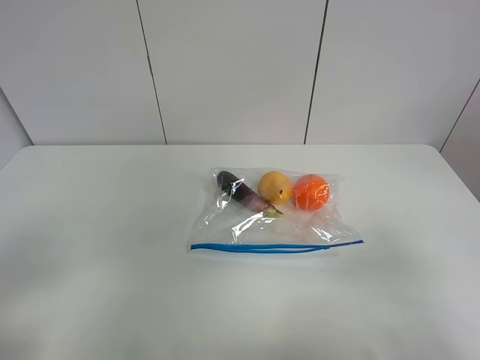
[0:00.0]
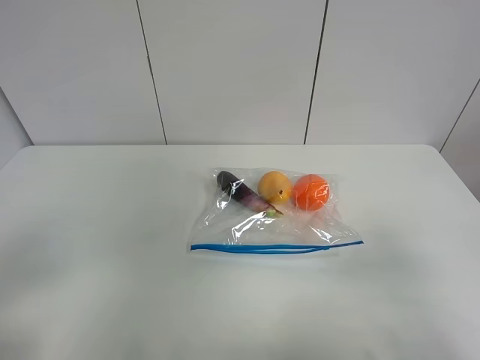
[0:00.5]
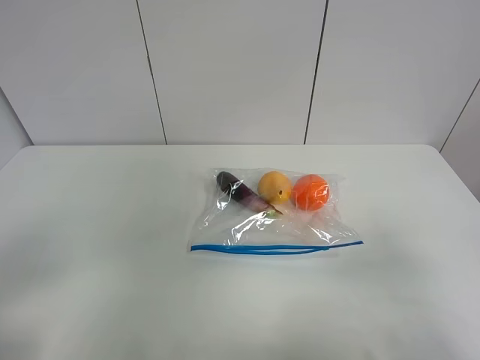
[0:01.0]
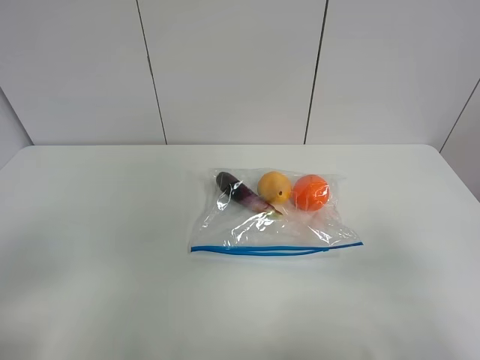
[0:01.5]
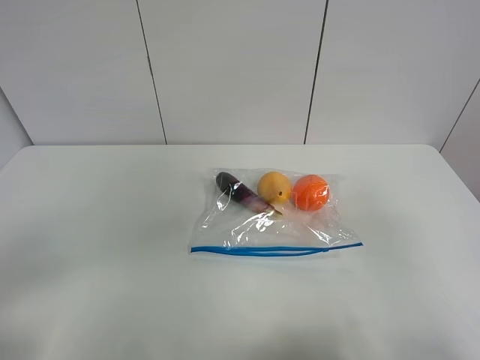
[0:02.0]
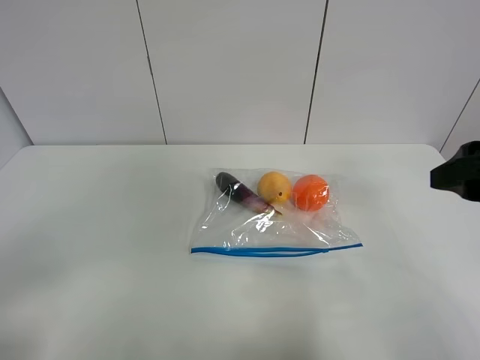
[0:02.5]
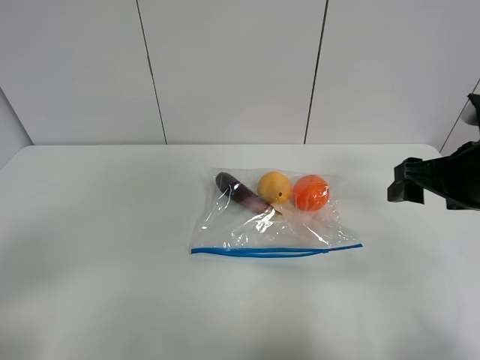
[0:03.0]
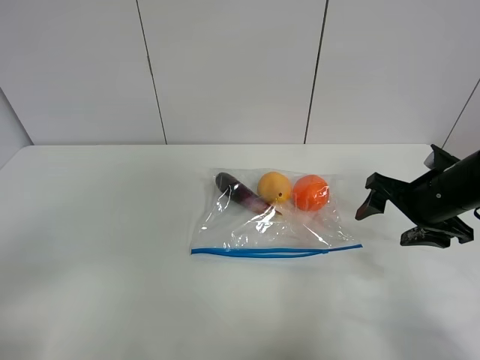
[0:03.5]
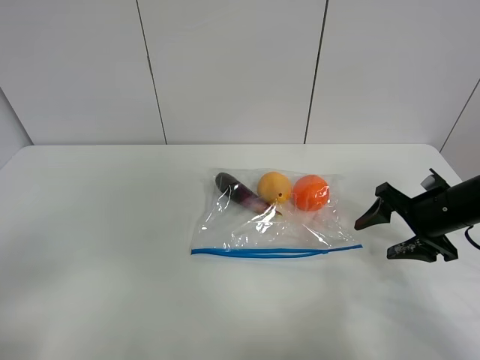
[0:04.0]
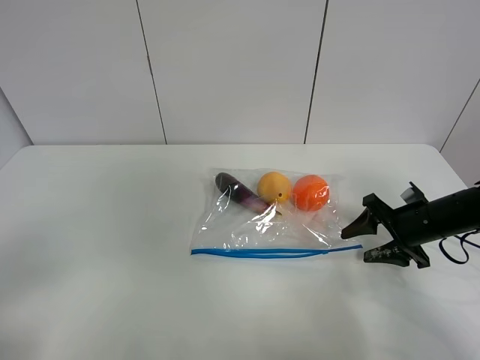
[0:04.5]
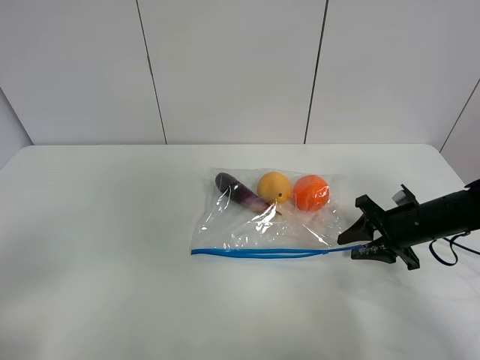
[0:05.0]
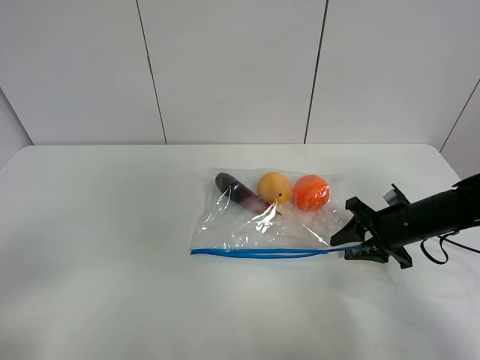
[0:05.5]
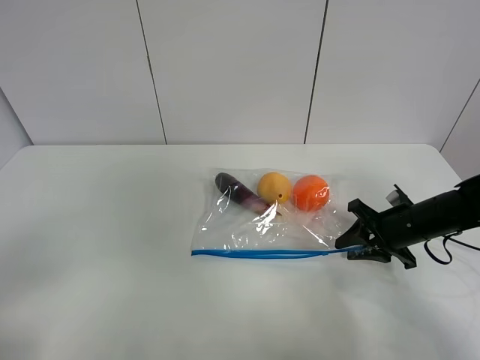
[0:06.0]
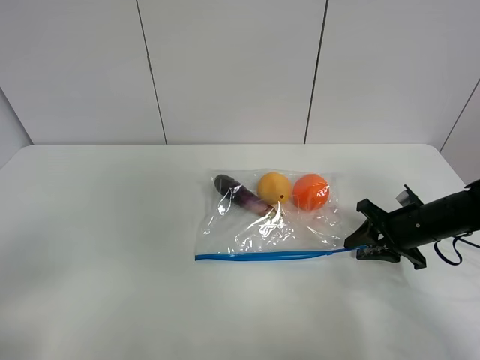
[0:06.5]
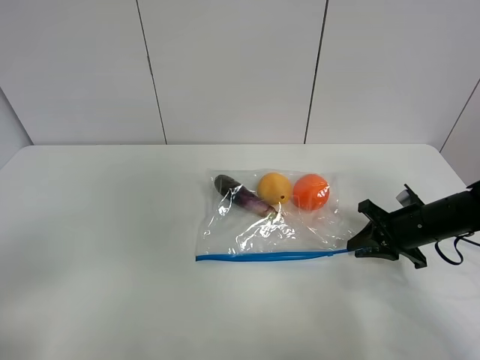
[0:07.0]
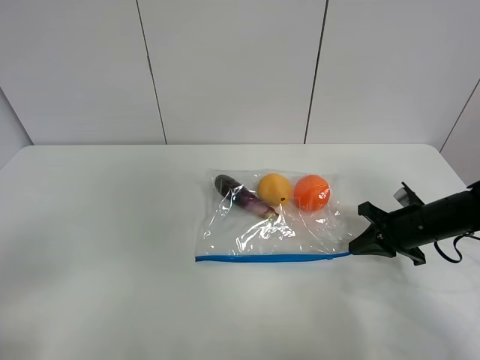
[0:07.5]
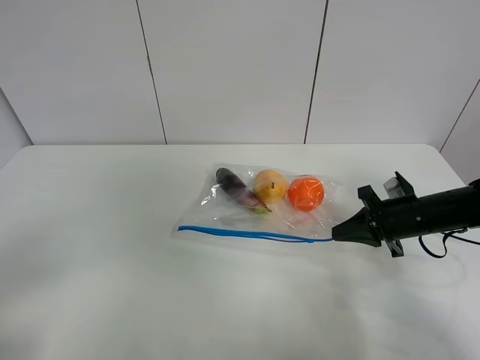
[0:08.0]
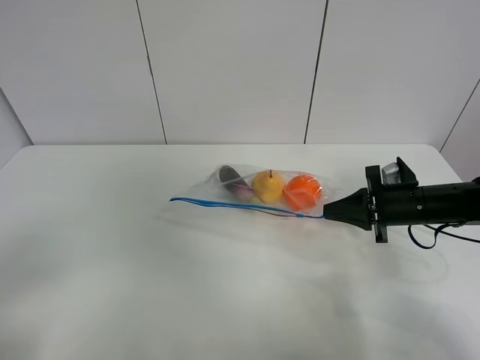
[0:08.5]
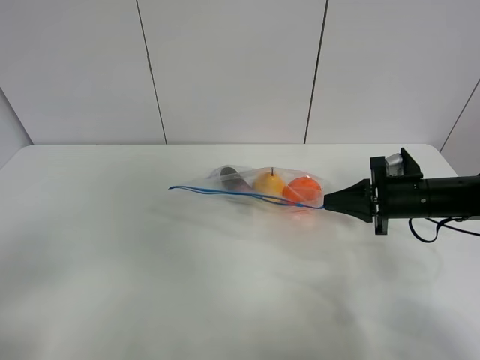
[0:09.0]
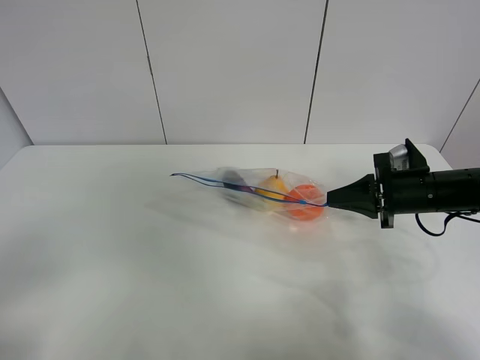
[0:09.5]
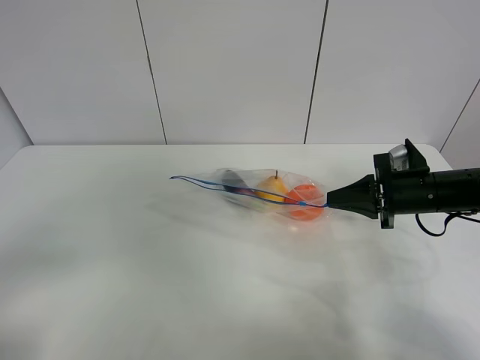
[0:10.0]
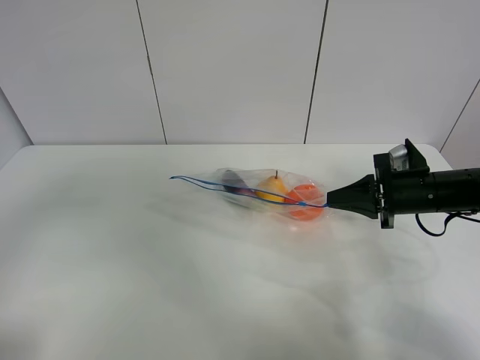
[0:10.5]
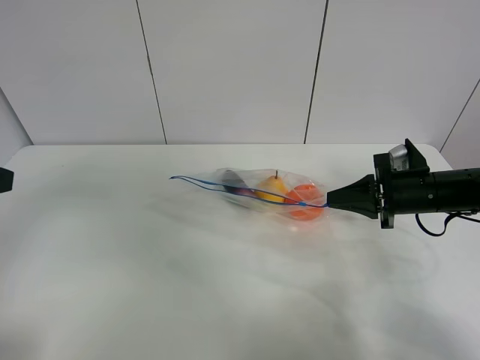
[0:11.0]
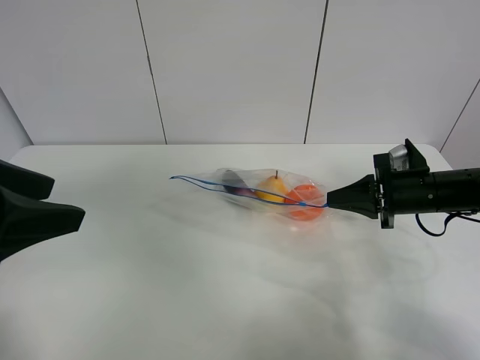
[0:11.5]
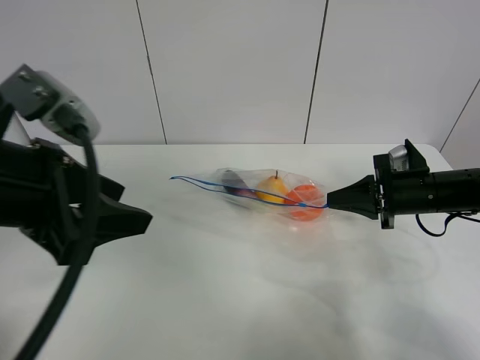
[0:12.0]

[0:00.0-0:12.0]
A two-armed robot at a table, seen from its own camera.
Step, 0.0 to 7.0 s: Grasp the fruit bag with right gripper.
Step, 7.5 to 9.5 s: Lift the fruit bag with your right gripper.
0.0 to 2.0 s: The right gripper heads forward and upward, covering roughly 10 cm.
2.0 to 4.0 s: The right gripper is displaced forward and downward by some 30 cm.
4.0 to 6.0 s: The right gripper ends up some 5 cm from where it was, and closes.
6.0 to 8.0 s: The right gripper closes its fingers.
8.0 to 10.0 s: The grippers move only a little.
10.0 to 12.0 s: The left gripper shifts about 20 cm forward and to the right.

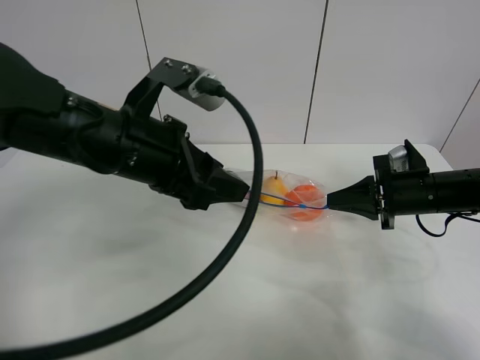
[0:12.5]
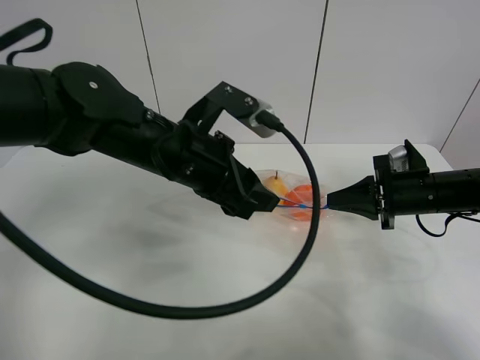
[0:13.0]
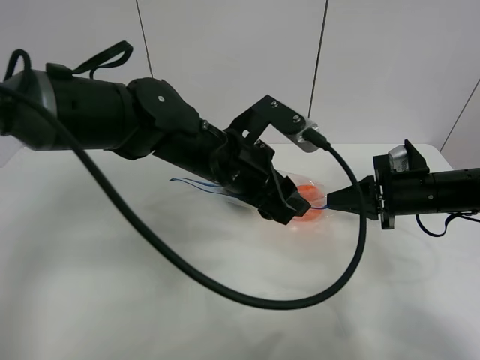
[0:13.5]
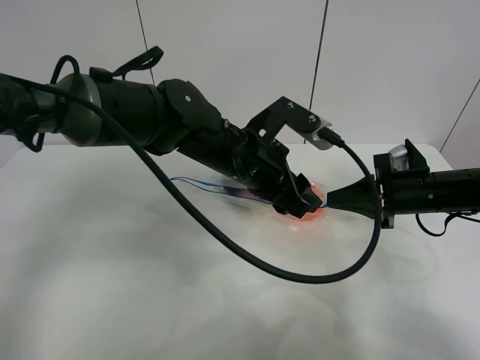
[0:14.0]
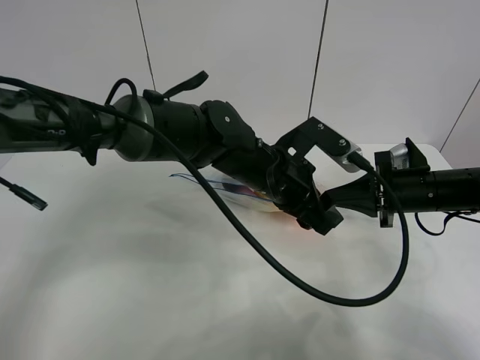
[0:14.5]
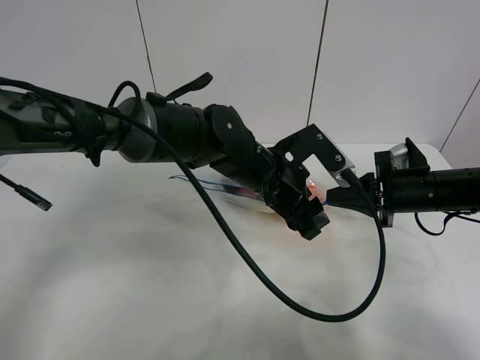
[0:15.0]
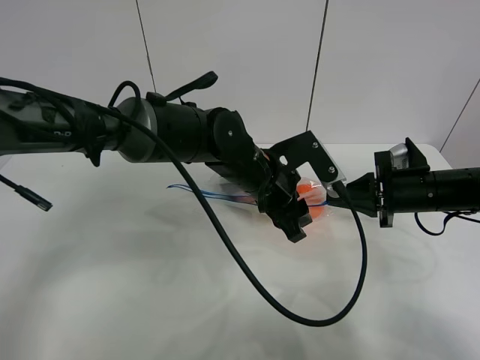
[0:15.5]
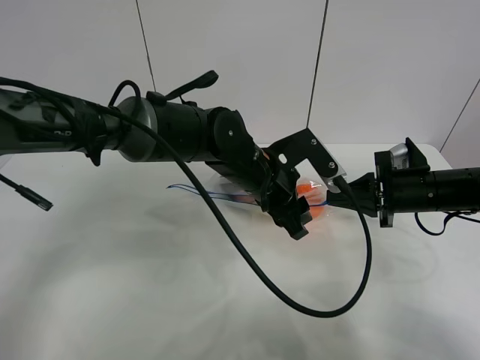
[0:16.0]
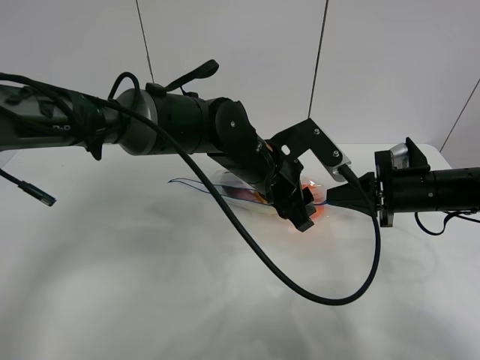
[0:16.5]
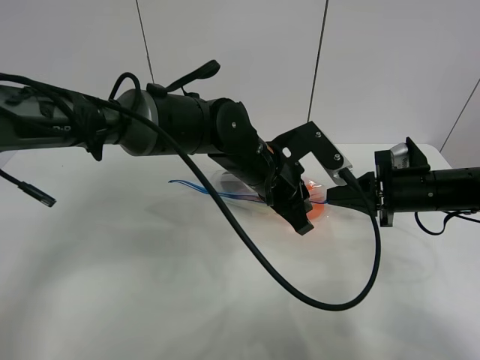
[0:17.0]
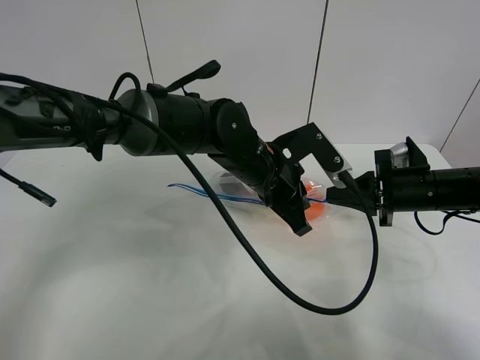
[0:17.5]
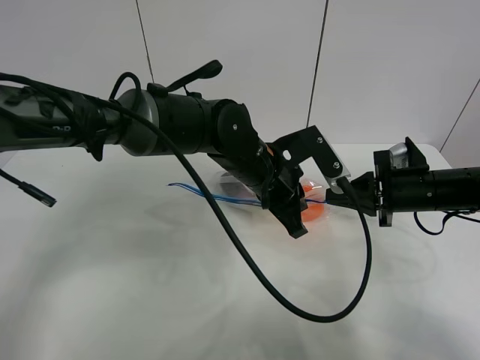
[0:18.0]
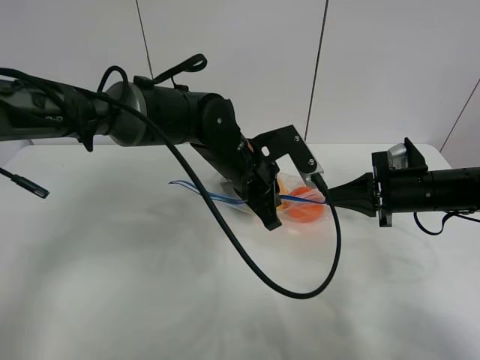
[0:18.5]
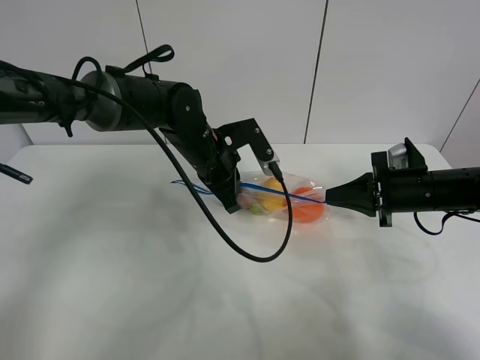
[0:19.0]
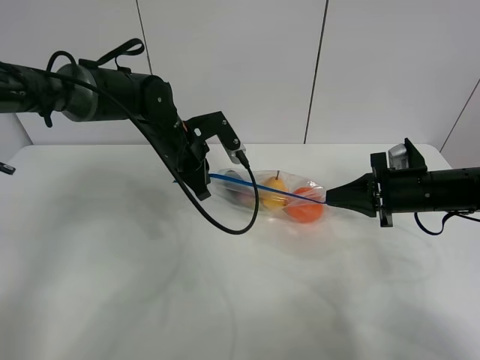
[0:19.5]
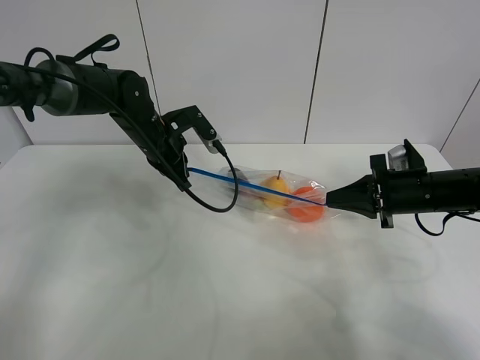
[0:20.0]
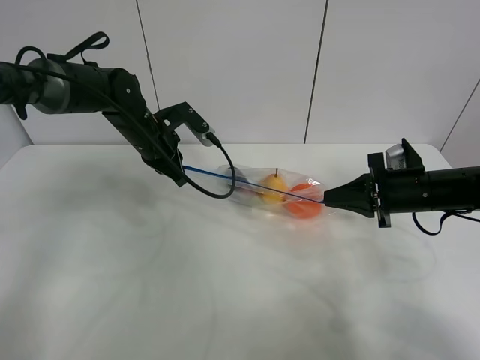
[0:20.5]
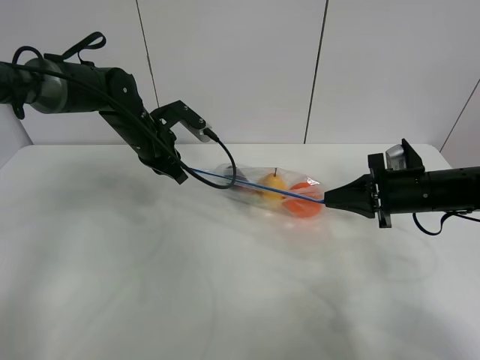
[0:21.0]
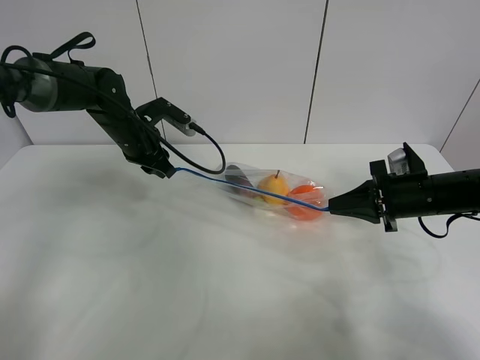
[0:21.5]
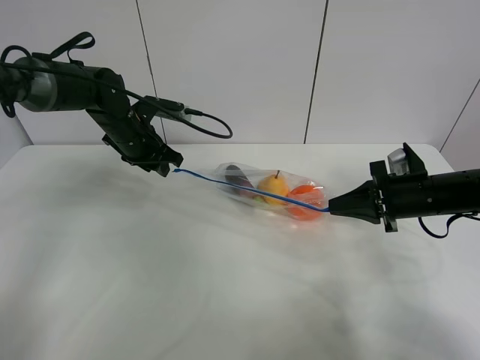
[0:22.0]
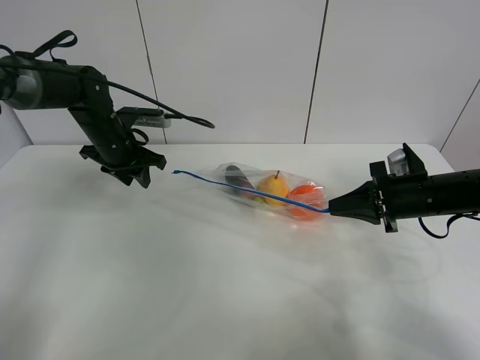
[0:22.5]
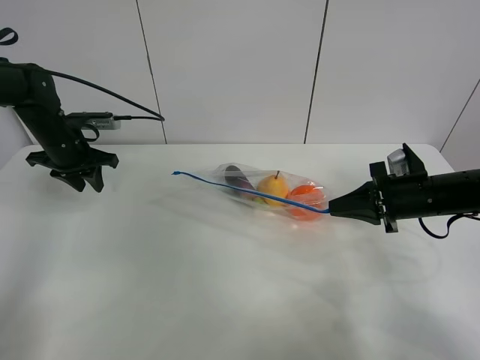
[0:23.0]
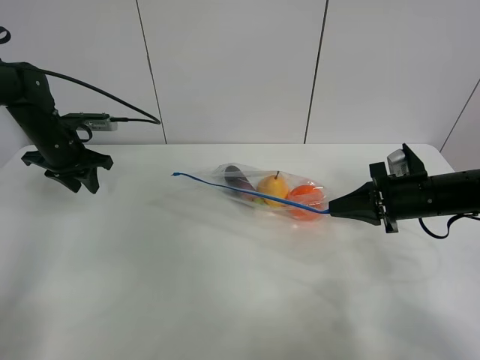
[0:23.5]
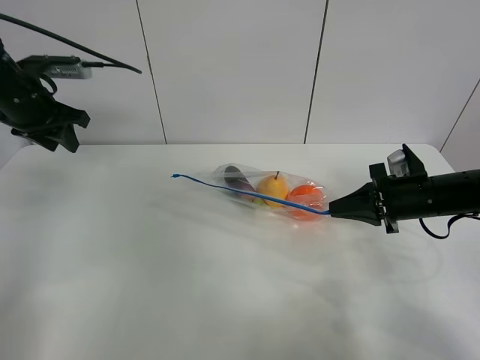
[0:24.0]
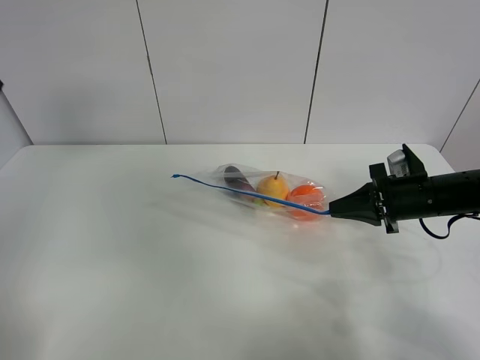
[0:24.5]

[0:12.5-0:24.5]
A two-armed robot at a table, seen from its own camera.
Step, 12.5 to 21.5 s: Pull the fruit bag with left gripper.
12.5 to 14.5 s: The left gripper is displaced to the right, downward and forward by roughly 20 cm.
14.5 to 16.5 s: There are only small adjustments of the grippers.
16.5 to 18.5 s: The left gripper closes its fingers.
18.5 to 20.5 s: The left gripper heads to the left and forward, covering some 20 cm.
20.5 to 22.5 s: The left gripper moves to the left, approximately 5 cm, and opens.
22.5 to 24.5 s: The left gripper heads upward and backward, covering approximately 30 cm.

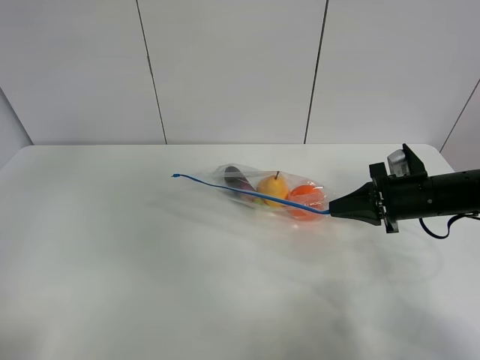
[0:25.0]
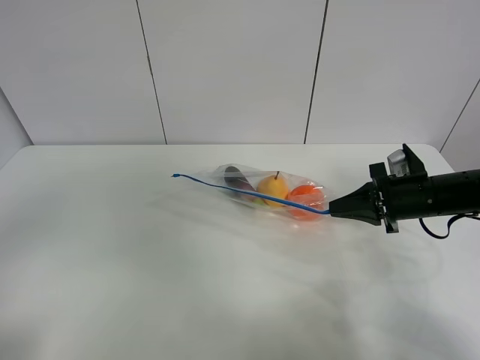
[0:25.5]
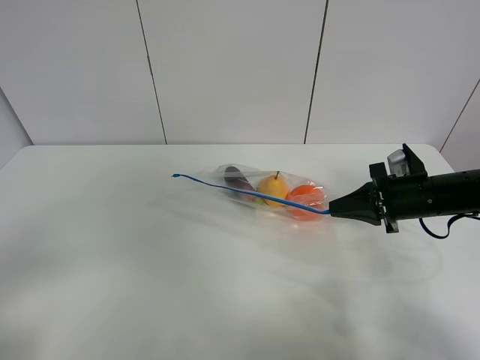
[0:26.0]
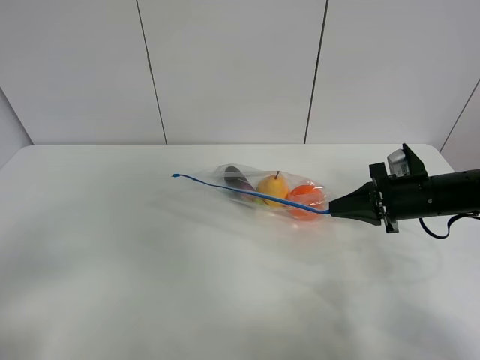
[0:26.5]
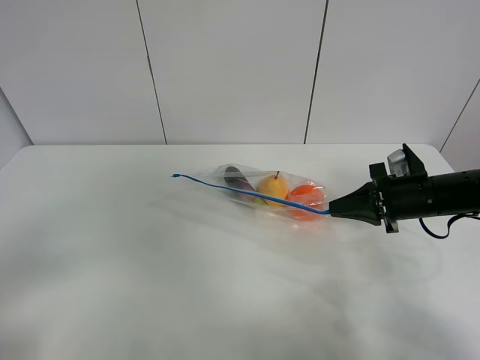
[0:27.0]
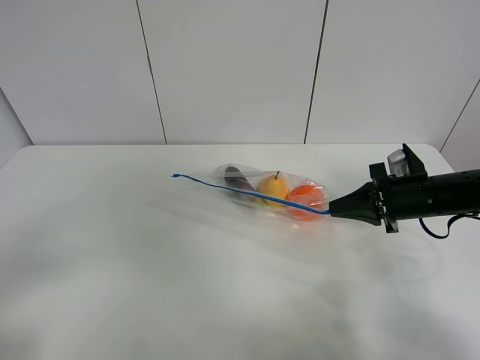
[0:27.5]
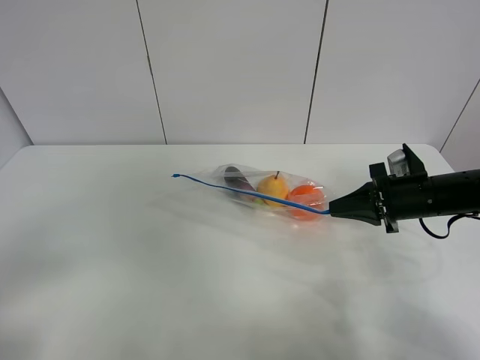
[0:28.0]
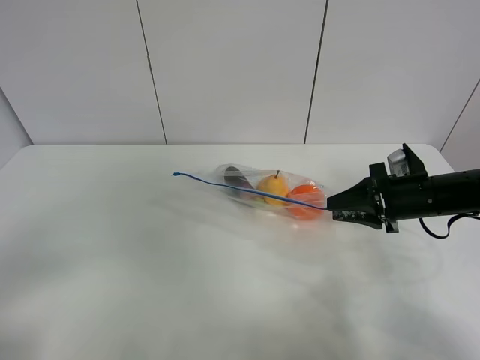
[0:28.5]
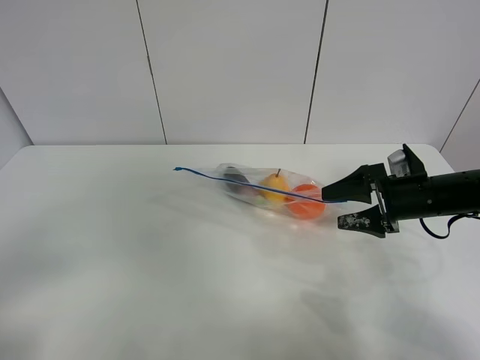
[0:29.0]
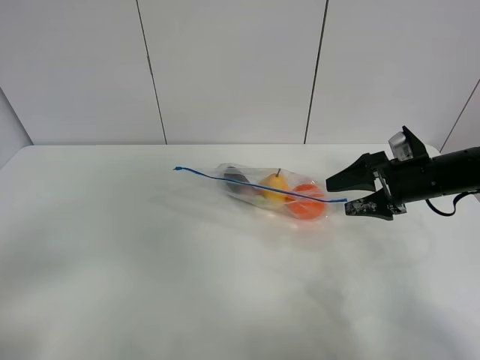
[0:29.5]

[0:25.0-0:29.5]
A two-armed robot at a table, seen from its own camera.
27.0 to 29.5 s: The left gripper opens its fingers. Meanwhile the right gripper opens up.
